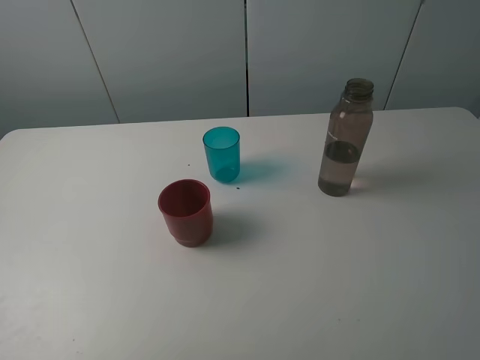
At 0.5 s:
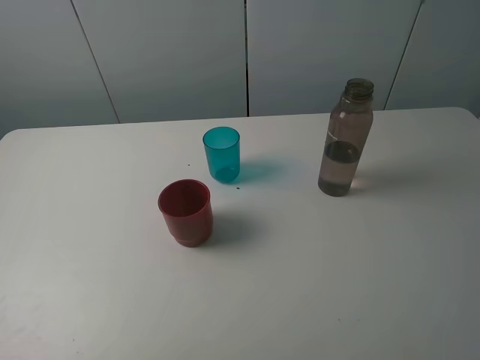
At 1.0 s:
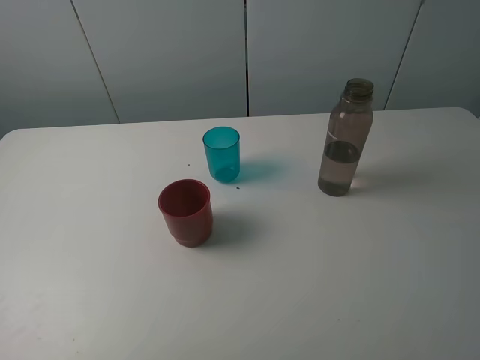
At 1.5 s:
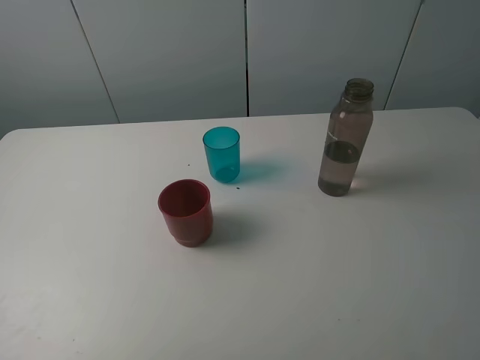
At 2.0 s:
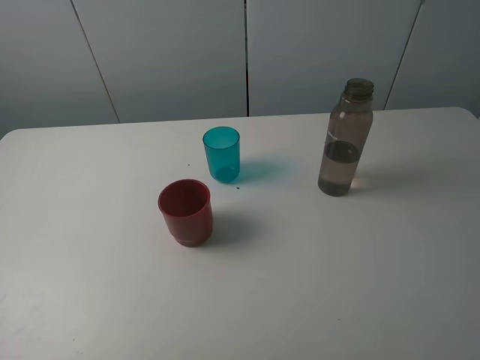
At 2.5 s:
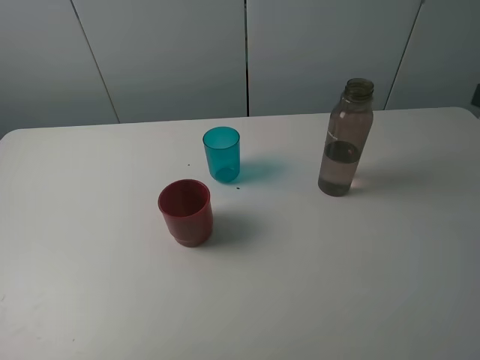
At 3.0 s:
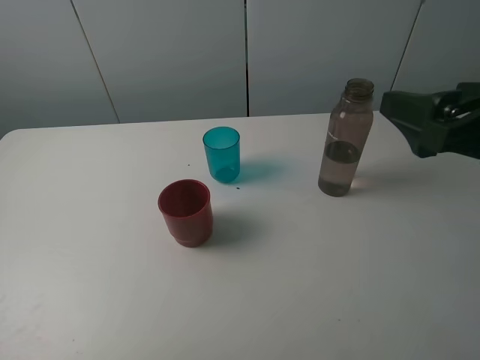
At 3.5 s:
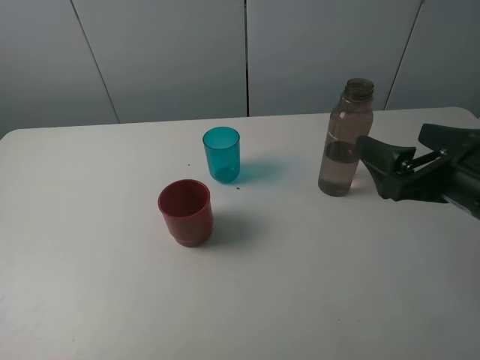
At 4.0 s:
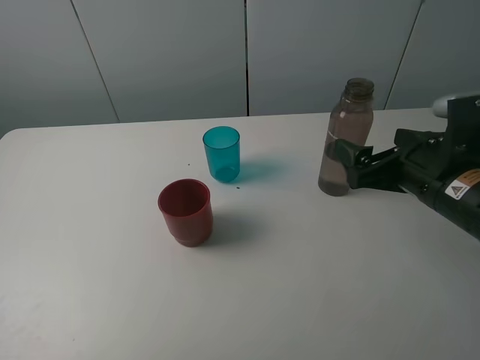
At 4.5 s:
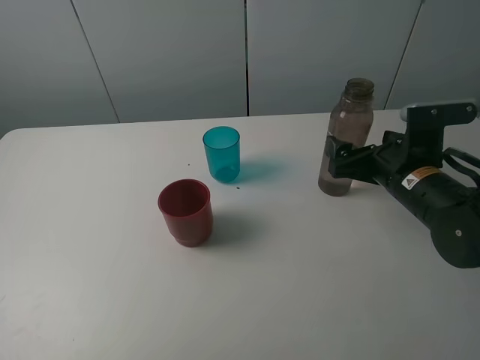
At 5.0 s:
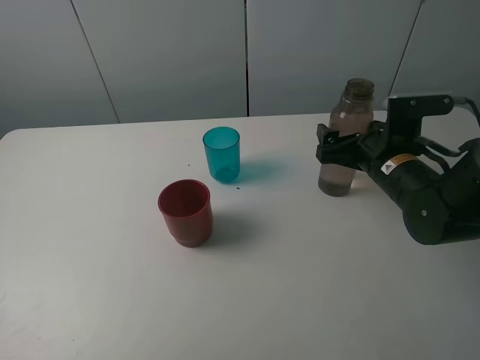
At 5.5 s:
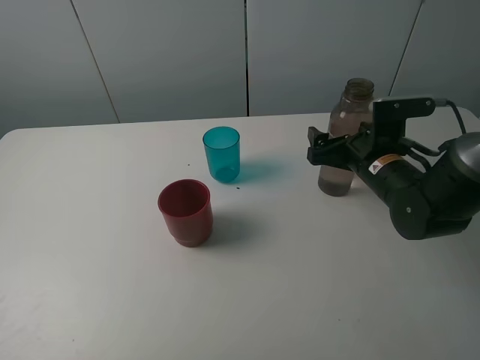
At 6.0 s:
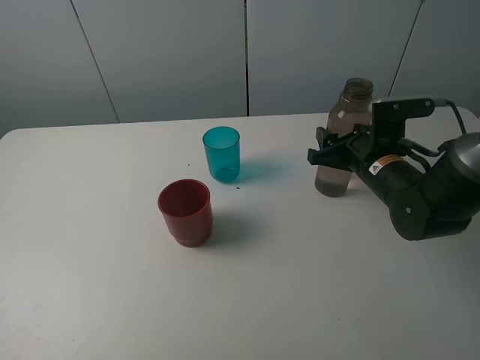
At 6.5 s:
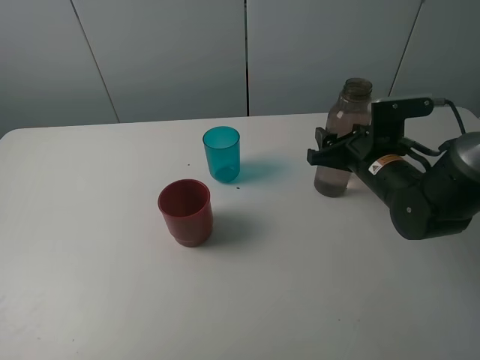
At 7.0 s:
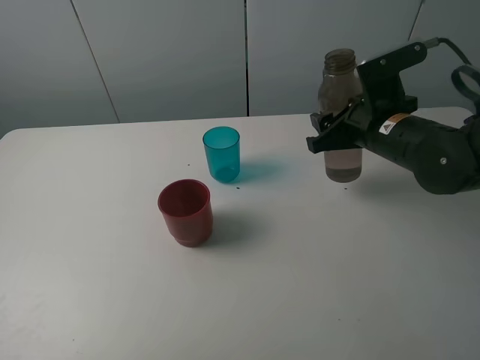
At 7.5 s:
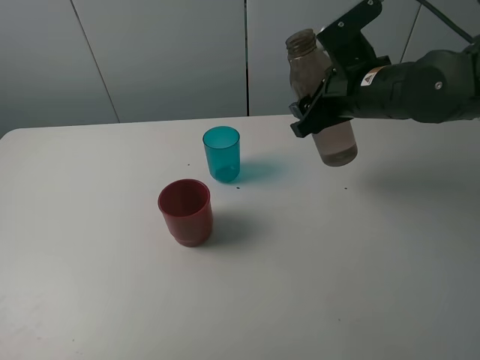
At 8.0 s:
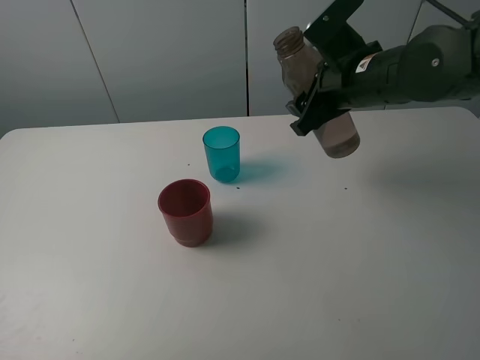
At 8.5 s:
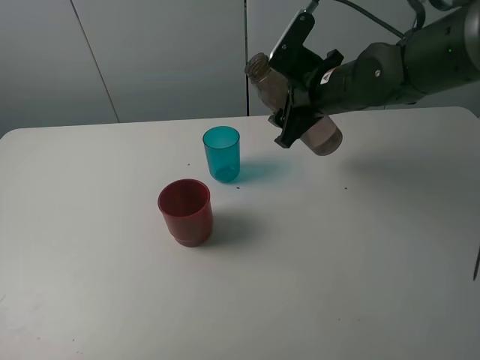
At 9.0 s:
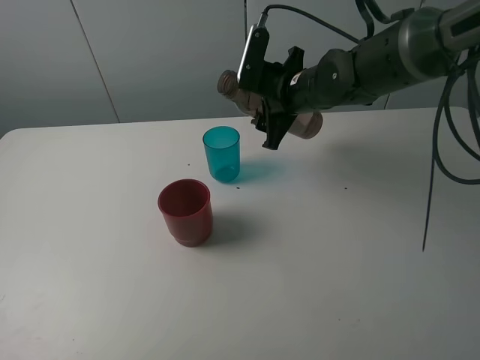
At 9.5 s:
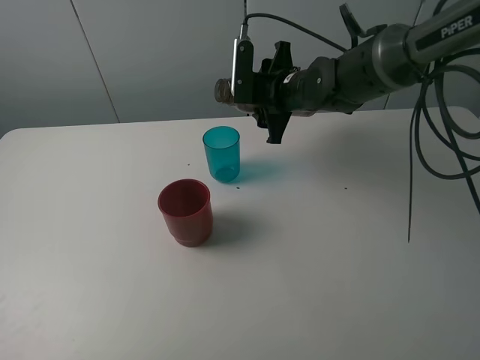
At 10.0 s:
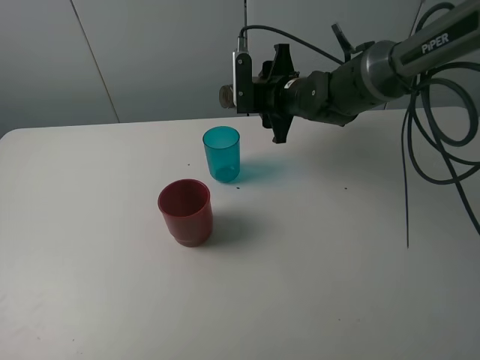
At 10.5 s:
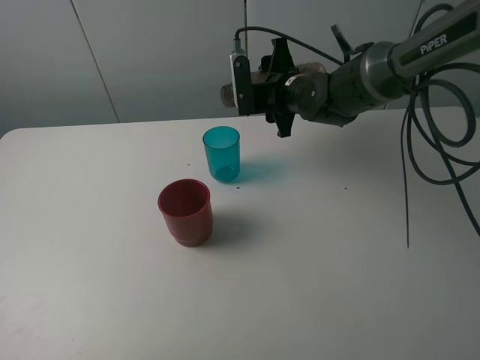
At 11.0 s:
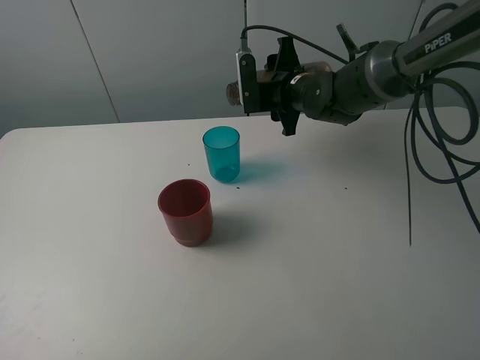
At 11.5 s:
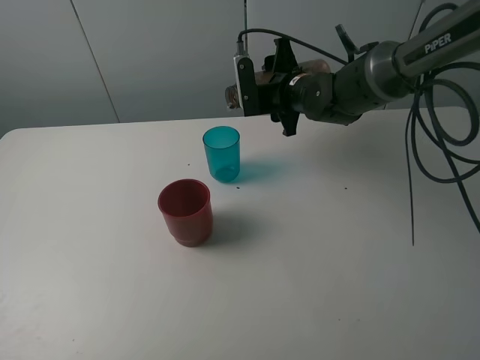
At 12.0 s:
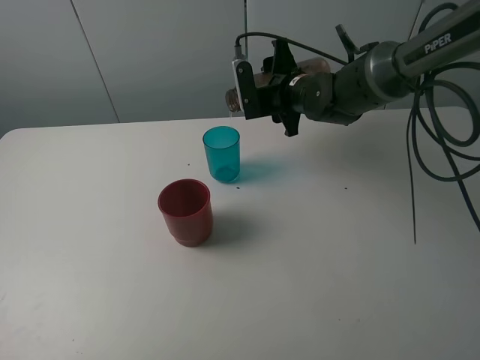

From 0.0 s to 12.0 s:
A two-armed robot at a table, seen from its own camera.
Task of the whole recording: pick up the bottle and pour water into the cup, then pick up the cup containing water and pour it into another cup.
Step, from 0.0 s to 5.5 s: Grasp the brown bottle with the right gripper.
From 2.0 s to 4.0 s: The right gripper shifts approximately 25 cm forward and downward.
From 4.0 s to 6.0 s: The right gripper travels forward and downward by approximately 10 cm, and closes.
From 6.0 s to 8.0 s: The right gripper goes roughly 10 cm upward.
From 8.0 s to 10.0 s: The right gripper goes roughly 15 cm forward, downward and to the left.
From 10.0 s to 12.0 s: The grippers stay close to where they were, moving slightly.

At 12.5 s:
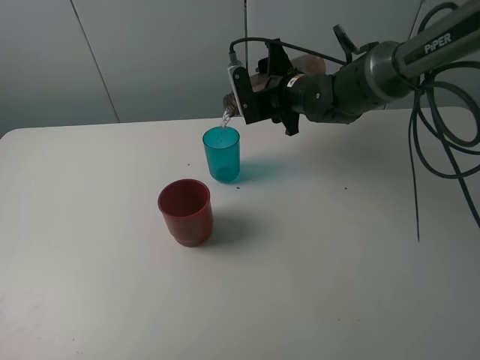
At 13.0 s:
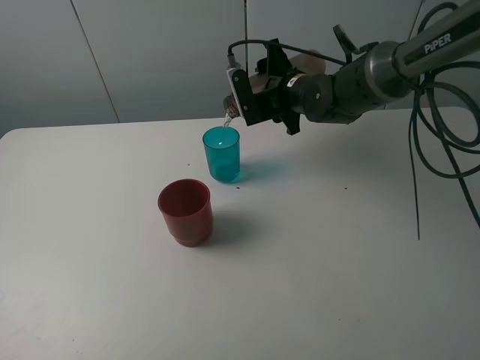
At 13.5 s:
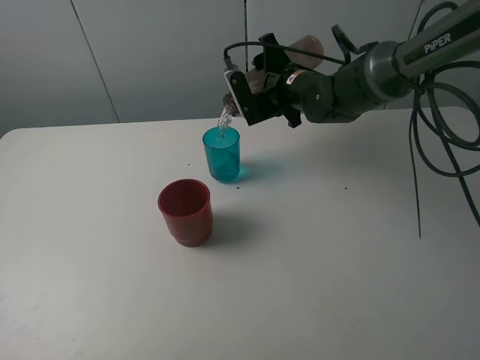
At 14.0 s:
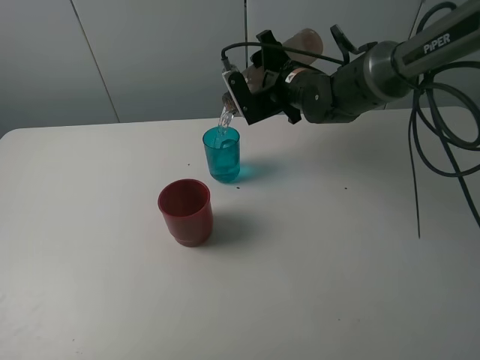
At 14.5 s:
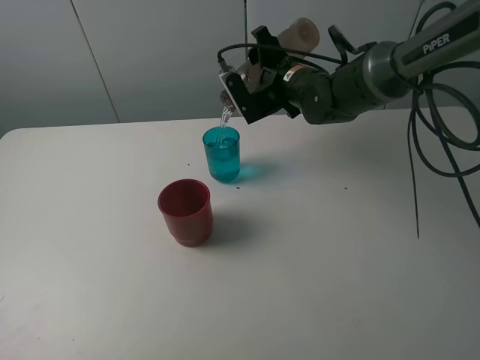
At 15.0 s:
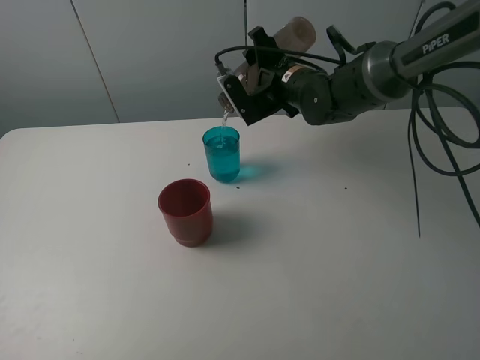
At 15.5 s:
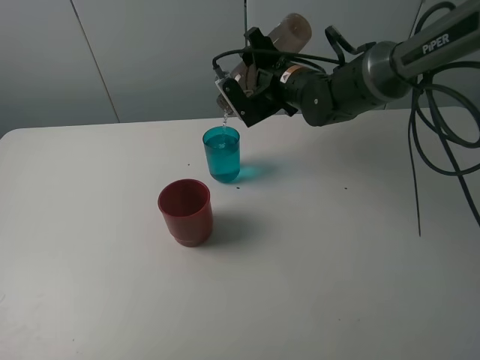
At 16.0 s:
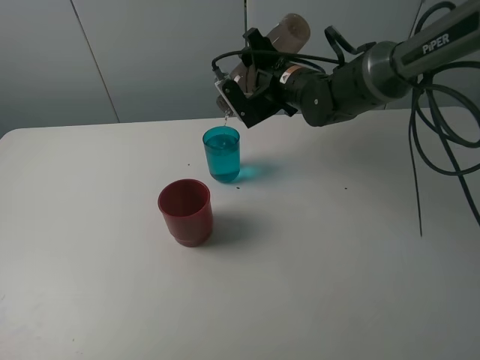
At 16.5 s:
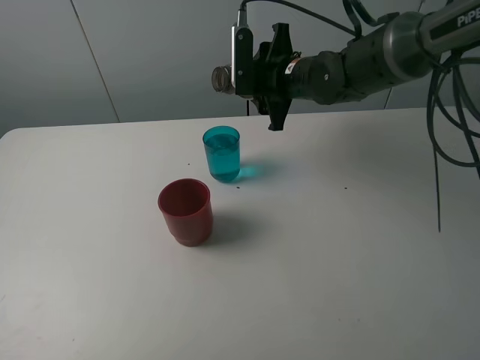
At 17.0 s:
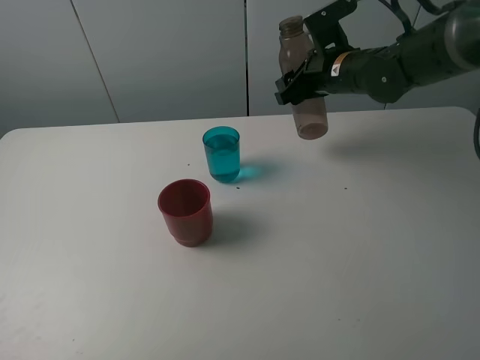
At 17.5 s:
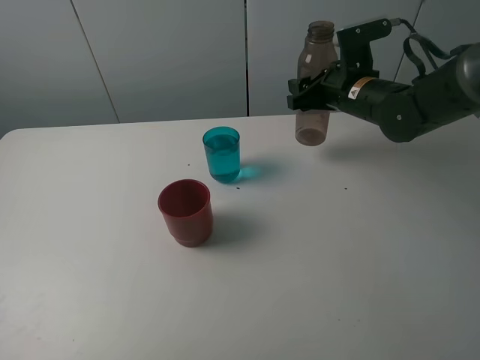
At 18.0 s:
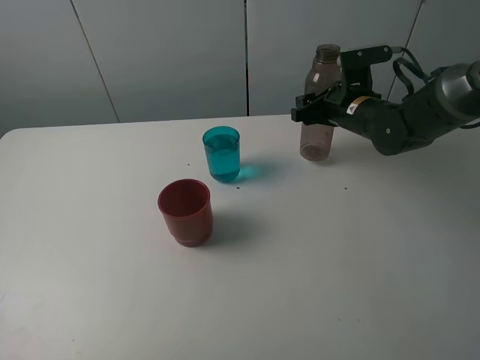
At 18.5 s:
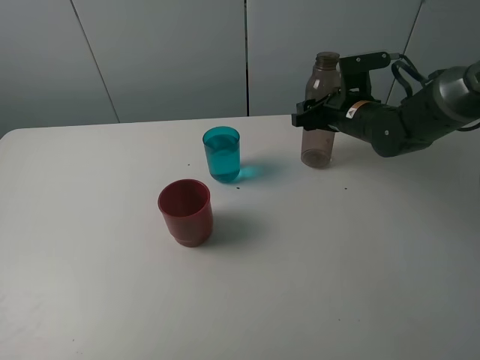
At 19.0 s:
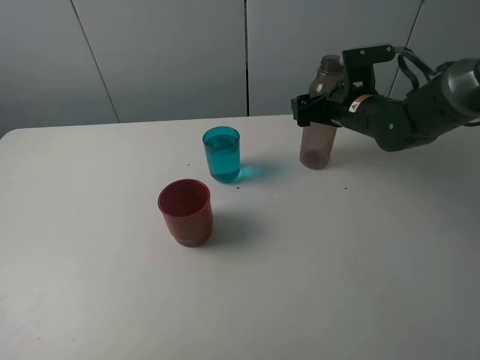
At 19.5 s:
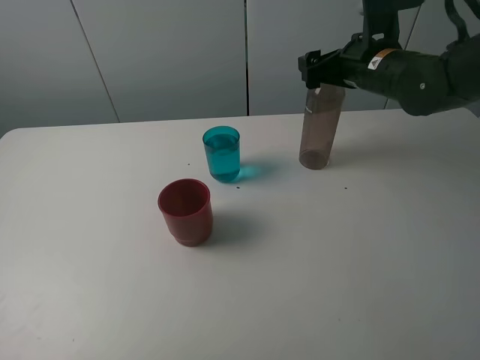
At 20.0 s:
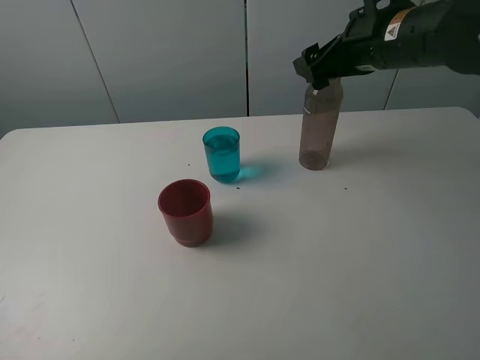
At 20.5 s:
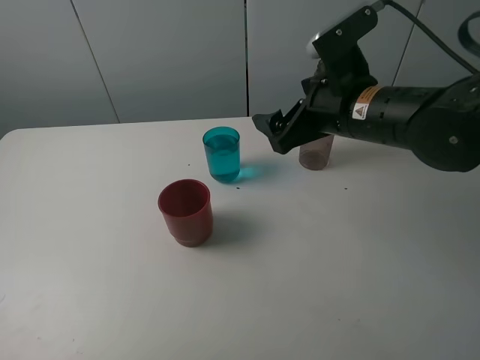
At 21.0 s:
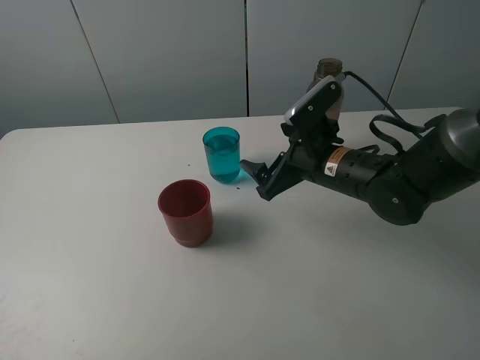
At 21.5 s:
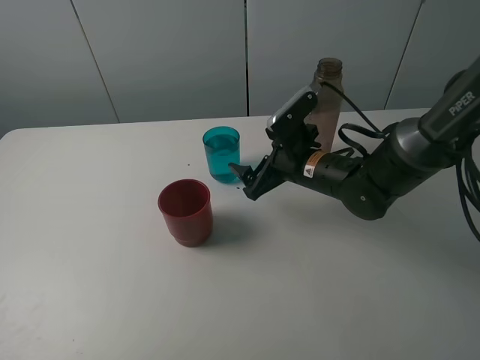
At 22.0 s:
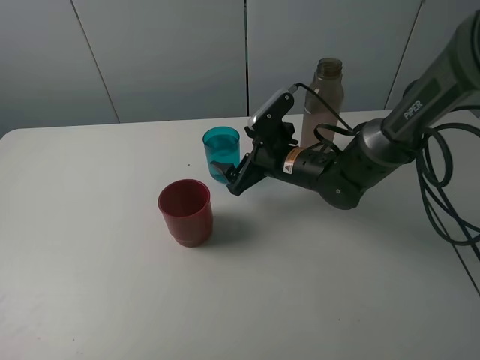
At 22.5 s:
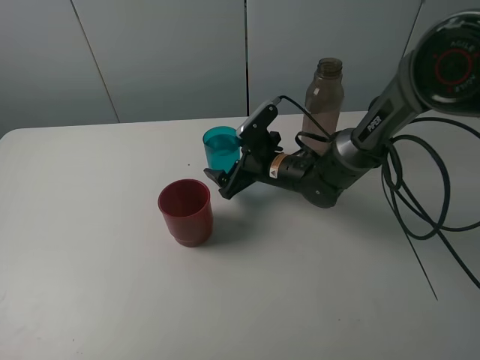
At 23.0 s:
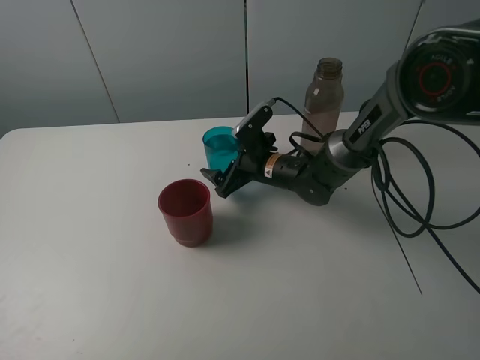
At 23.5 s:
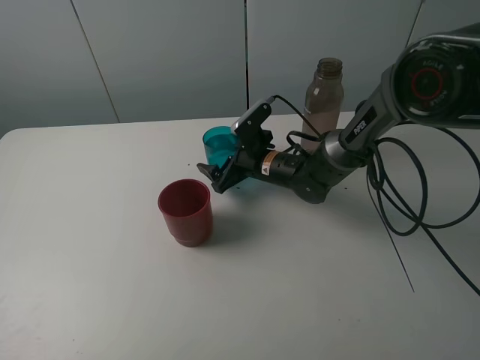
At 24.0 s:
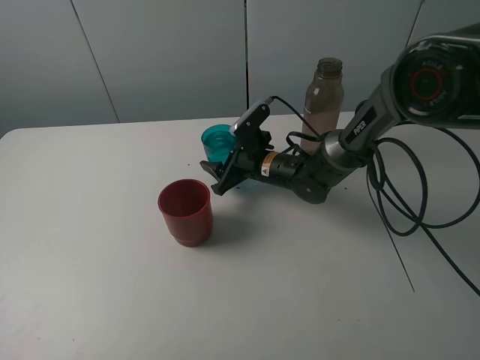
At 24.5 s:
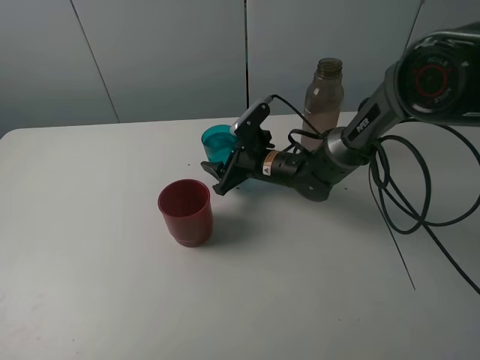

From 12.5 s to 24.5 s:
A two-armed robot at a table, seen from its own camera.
Task of the whole recording: pick up the bottle and pour water into the cup, then pick up the cup containing water and pour it into another cup.
Step, from 12.5 s to 16.0 s: Pour water from brown bottle to blue cup with the right gripper.
Step, from 16.5 s to 19.0 s: Place the brown bottle with the right gripper.
Step, from 19.5 s to 23.5 s: Grasp the blue cup with the right gripper.
From 12.5 s to 14.5 s: The grippers move only a little.
From 16.5 s to 18.5 s: The right gripper goes approximately 10 cm to the right and downward.
From 18.5 s to 20.5 s: The right gripper goes roughly 15 cm backward and upward, and opens.
From 20.5 s to 22.5 s: The right gripper shifts about 20 cm downward, forward and to the left.
From 22.5 s to 24.5 s: The right gripper closes.

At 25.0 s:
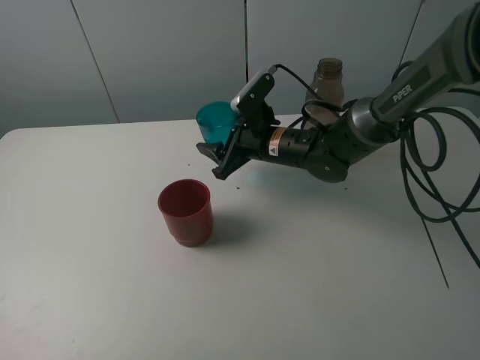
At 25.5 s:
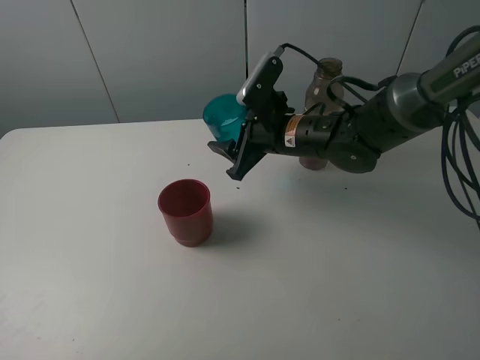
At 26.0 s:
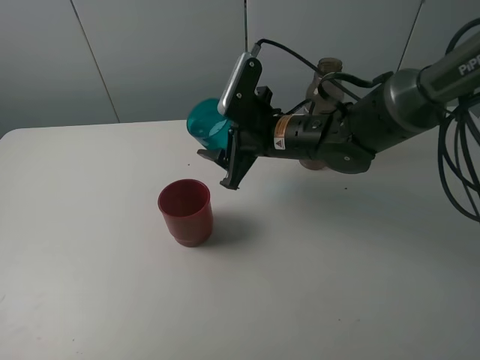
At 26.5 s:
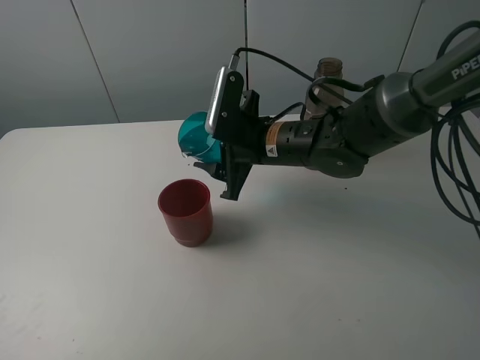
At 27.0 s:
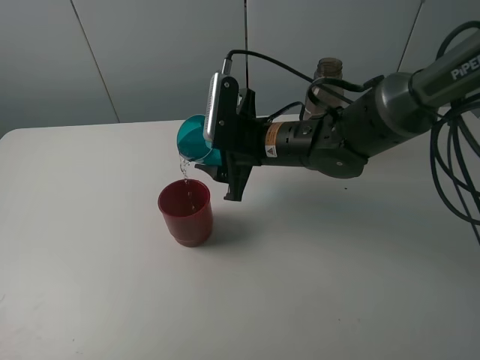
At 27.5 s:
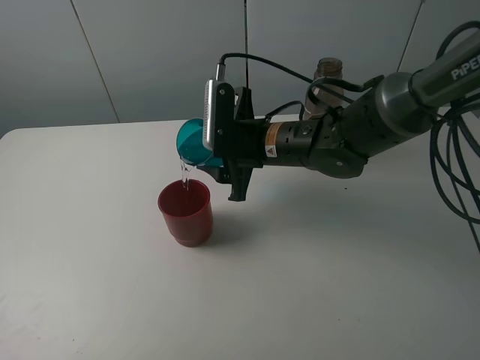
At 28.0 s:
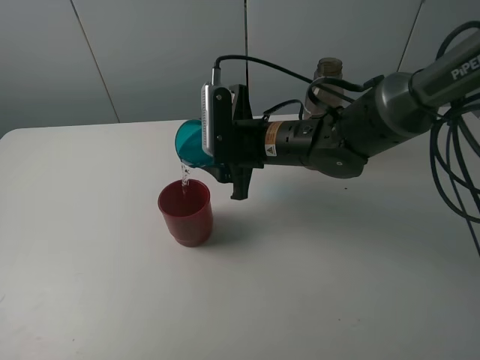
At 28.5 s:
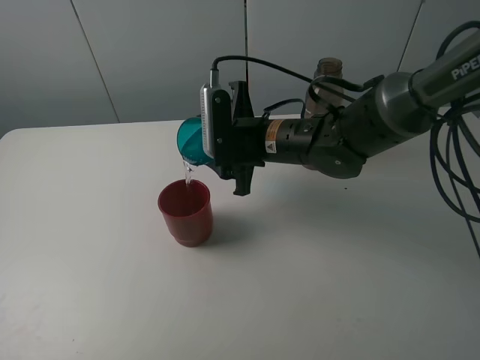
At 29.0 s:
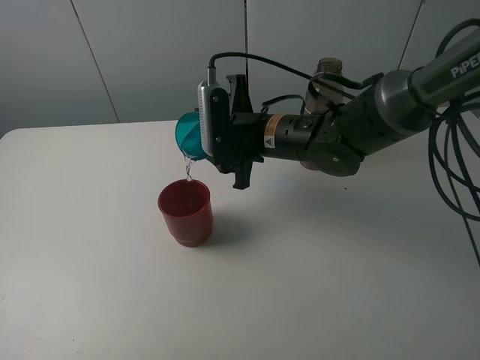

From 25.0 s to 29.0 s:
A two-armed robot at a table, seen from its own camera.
Task of the whole recording: pick up the bottle and pour water into the cup, then pick up the cup containing water and pour it into another cup.
From 25.0 s to 27.0 s: The right gripper moves some 5 cm.
